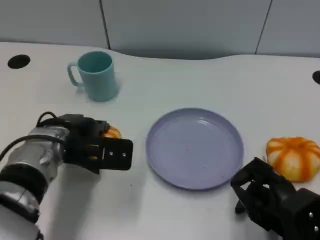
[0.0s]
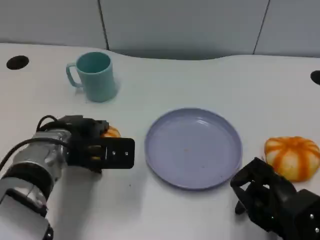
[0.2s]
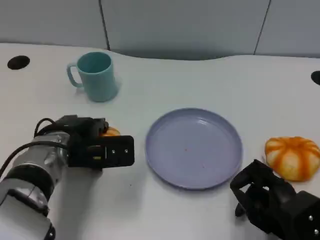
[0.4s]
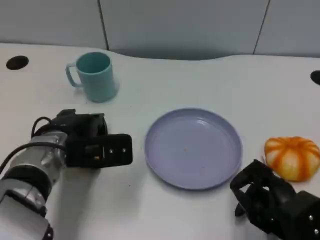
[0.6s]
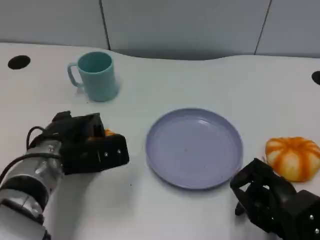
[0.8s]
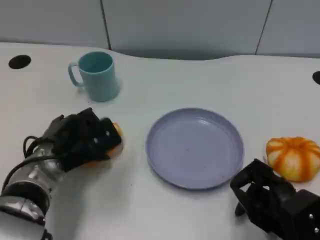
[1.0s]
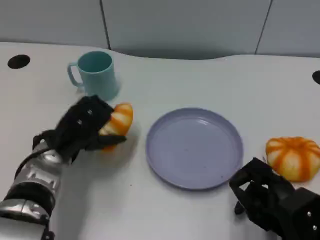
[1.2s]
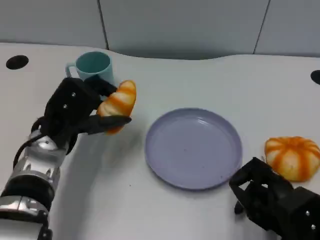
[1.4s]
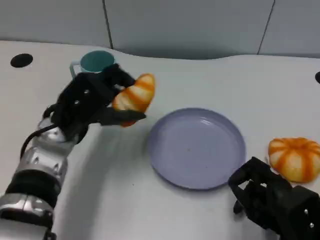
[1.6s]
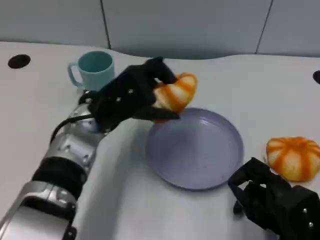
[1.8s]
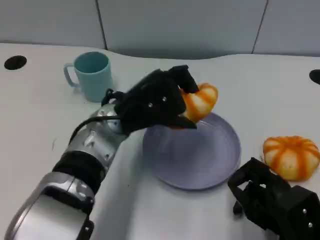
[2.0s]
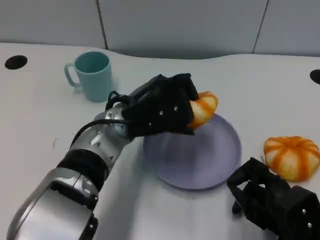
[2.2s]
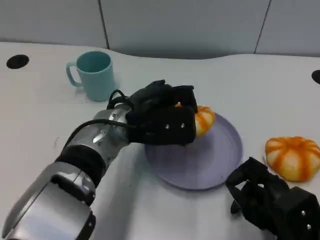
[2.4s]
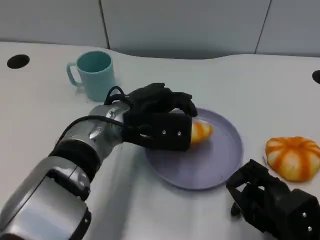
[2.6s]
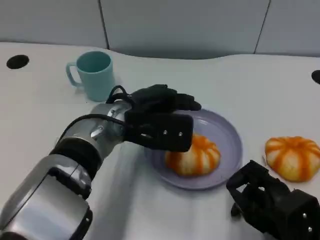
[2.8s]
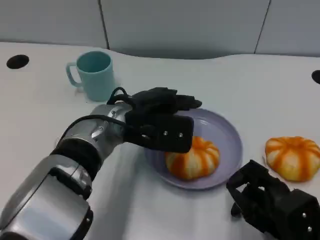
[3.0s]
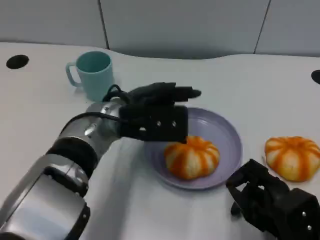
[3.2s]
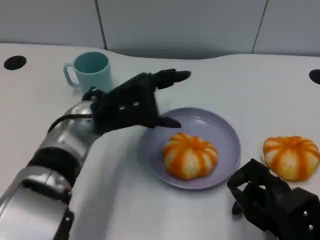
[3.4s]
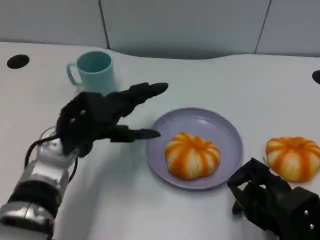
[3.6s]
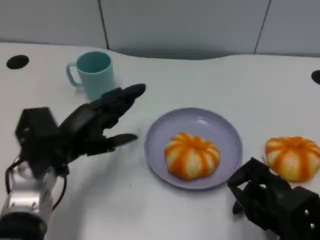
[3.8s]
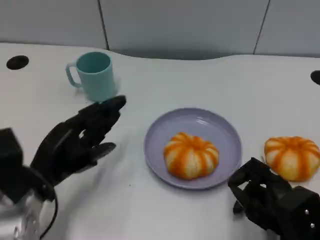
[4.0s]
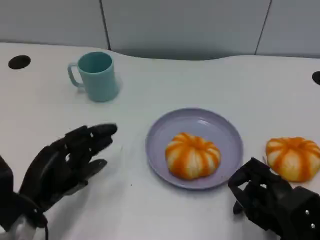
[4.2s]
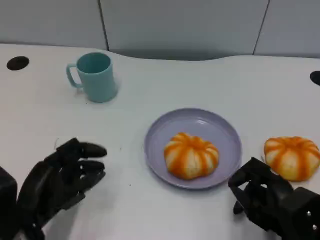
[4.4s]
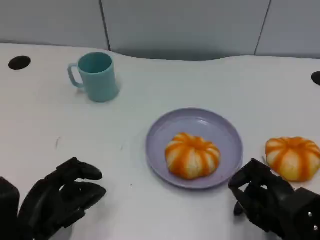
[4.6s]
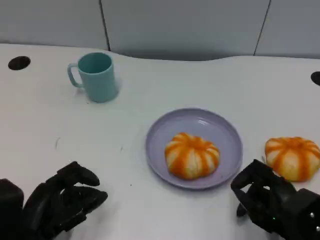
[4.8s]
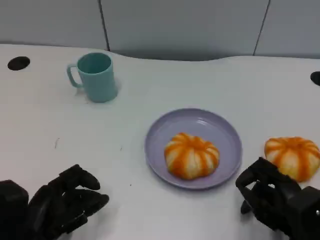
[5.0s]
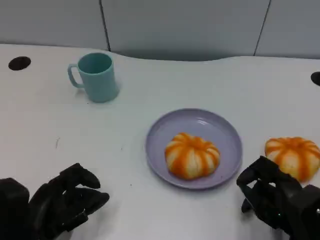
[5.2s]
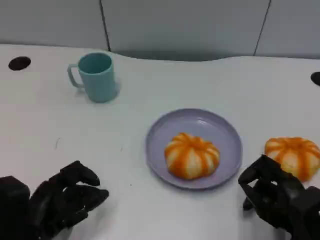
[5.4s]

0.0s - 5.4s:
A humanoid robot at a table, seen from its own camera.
Task of the whole recording: Grasp the bread from the table and place it into the plate.
1.4s - 2.8s: The left hand moves to the right, about 10 cm.
2.8s - 4.0s: The left hand shifts some 20 cm to the left, backward and downward.
4.0s - 5.4s: The left hand heads backward, covering some 5 cm.

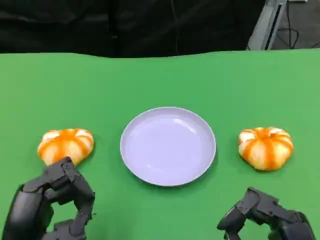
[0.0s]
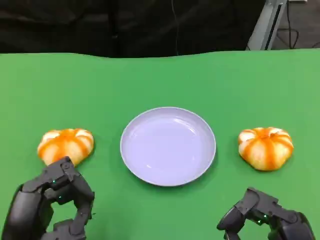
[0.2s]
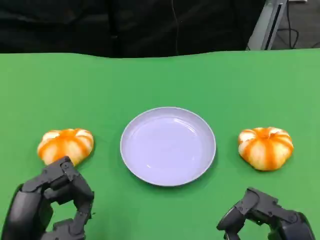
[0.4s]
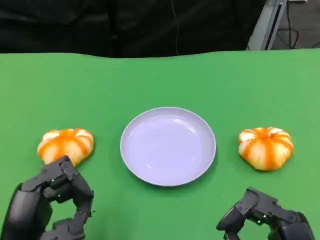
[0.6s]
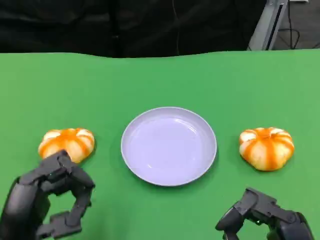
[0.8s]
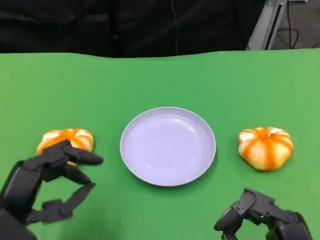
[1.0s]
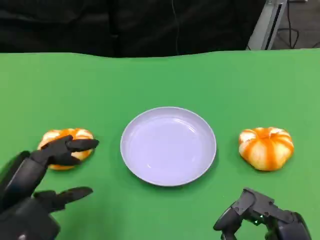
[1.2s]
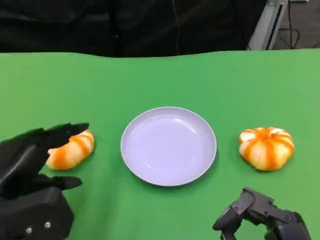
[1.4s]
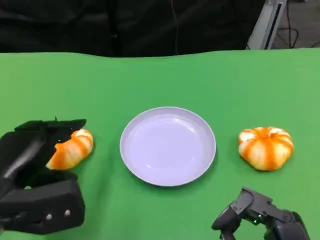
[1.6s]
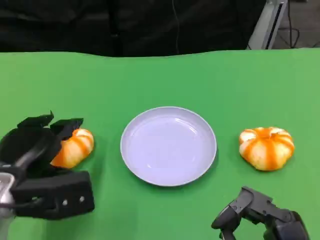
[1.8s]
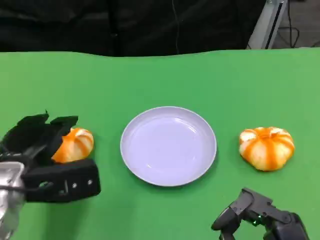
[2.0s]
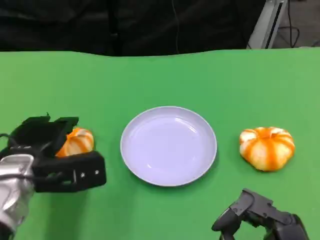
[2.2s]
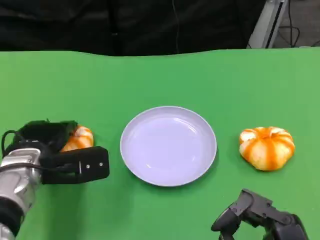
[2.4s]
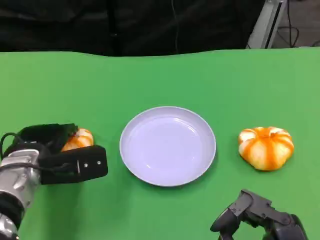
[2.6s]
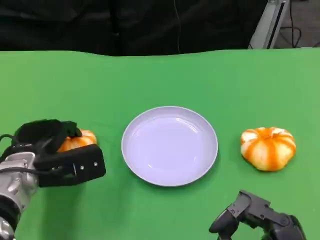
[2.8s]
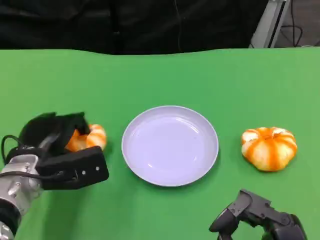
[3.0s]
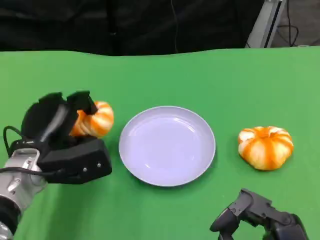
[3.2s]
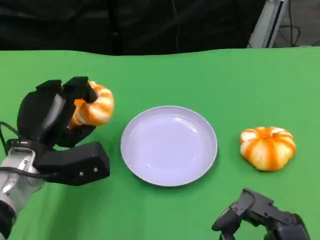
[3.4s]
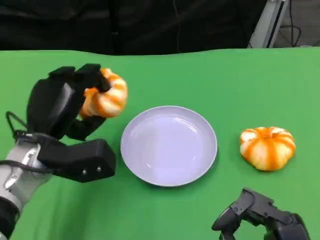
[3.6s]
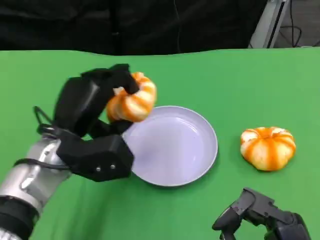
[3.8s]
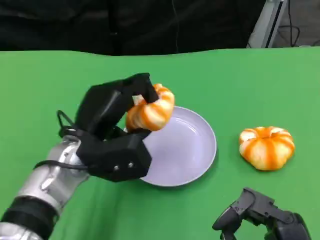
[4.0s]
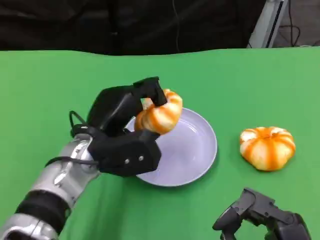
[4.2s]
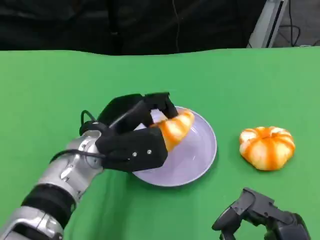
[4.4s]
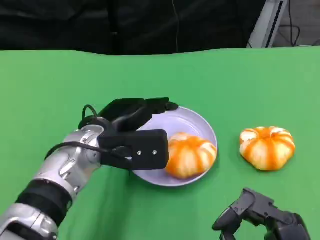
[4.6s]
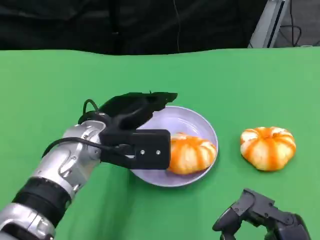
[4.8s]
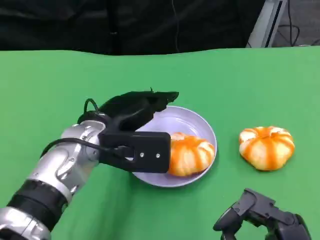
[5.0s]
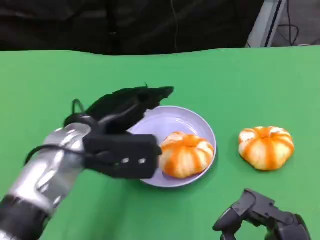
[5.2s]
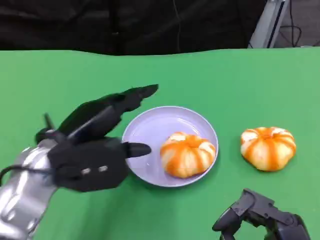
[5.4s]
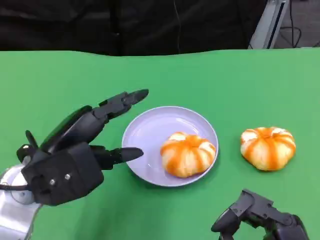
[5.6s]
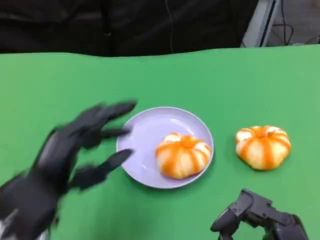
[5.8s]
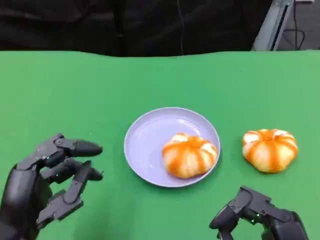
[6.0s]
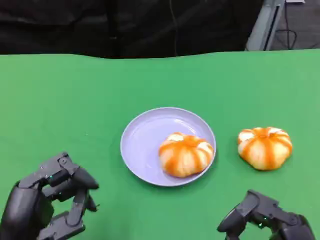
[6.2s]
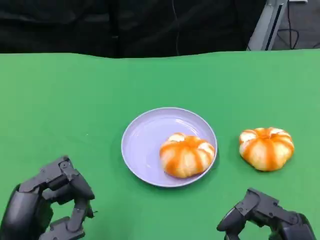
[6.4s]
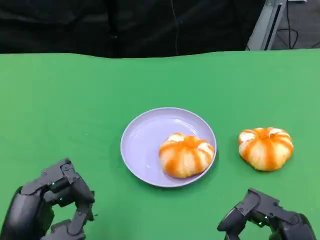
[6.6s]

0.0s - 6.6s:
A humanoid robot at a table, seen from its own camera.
Task of the whole recording: Grasp the bread from the table and place it into the plate.
0.0s - 1.6s: The left hand is displaced forward by approximately 10 cm.
1.6s - 3.2s: The left hand is displaced forward by roughly 10 cm.
3.2s - 5.0s: The left hand shifts approximately 10 cm to the right and upward.
5.0s - 6.6s: The left hand goes approximately 20 cm backward and to the left.

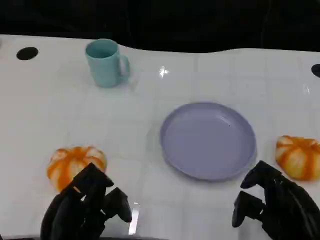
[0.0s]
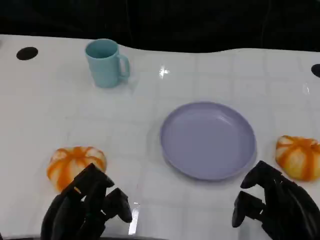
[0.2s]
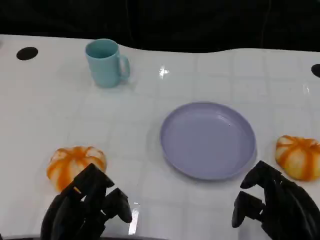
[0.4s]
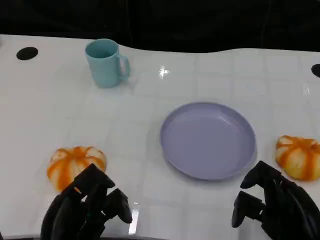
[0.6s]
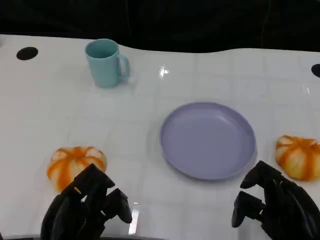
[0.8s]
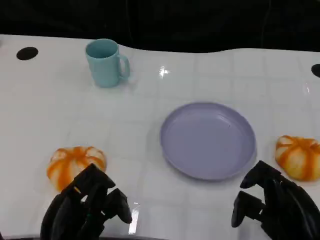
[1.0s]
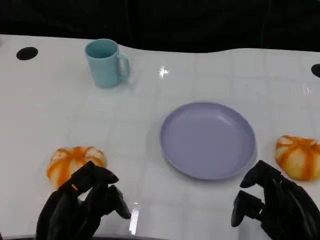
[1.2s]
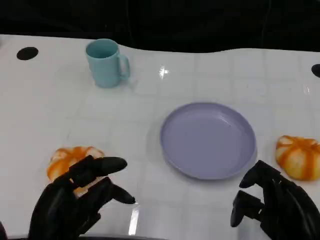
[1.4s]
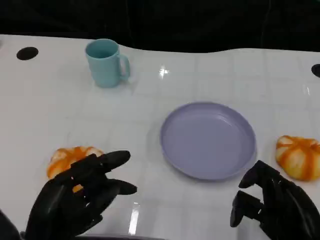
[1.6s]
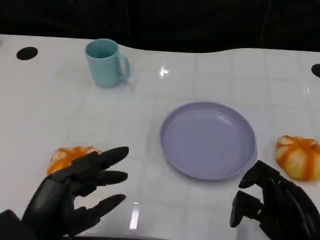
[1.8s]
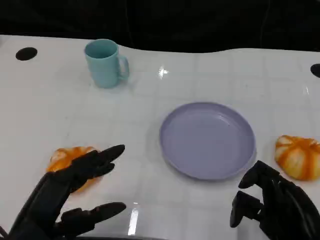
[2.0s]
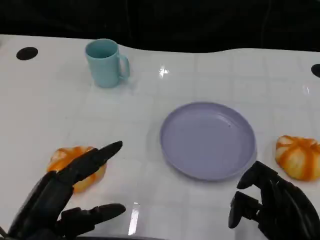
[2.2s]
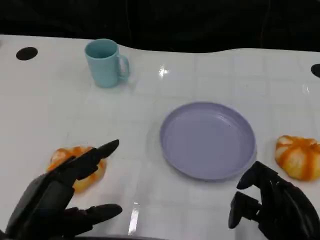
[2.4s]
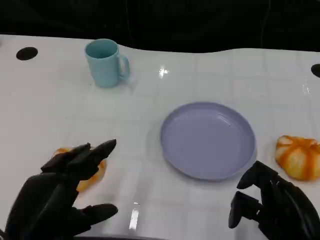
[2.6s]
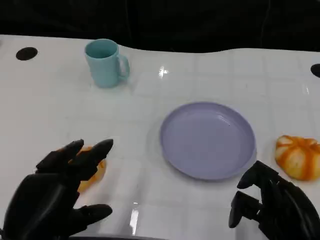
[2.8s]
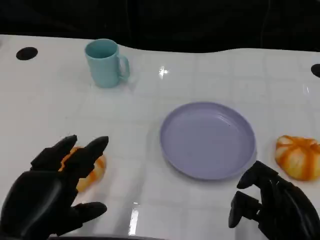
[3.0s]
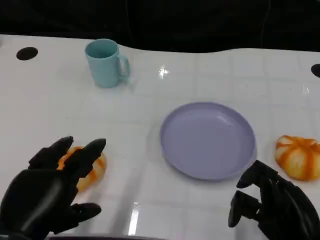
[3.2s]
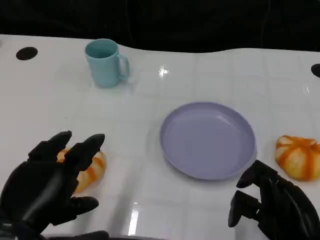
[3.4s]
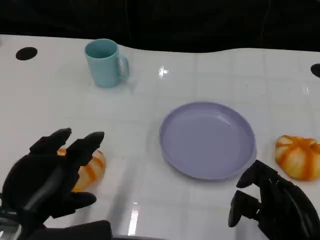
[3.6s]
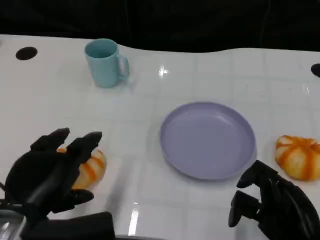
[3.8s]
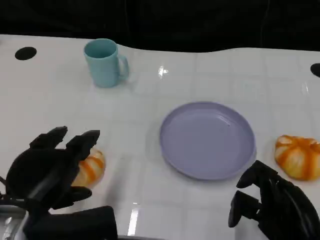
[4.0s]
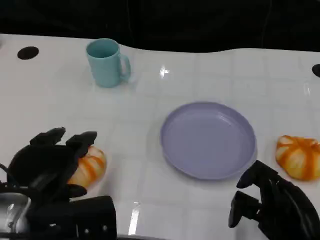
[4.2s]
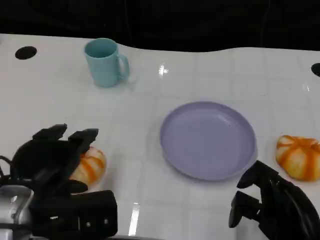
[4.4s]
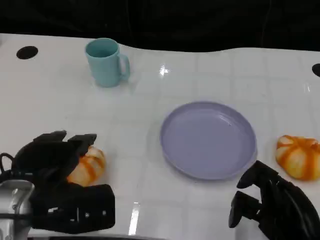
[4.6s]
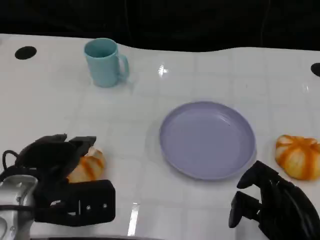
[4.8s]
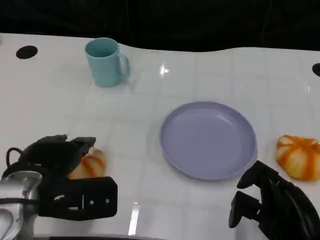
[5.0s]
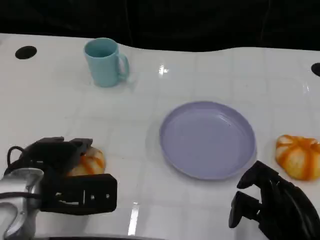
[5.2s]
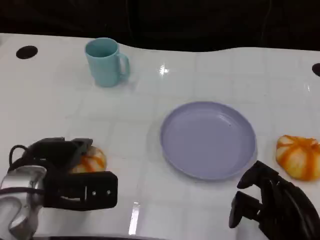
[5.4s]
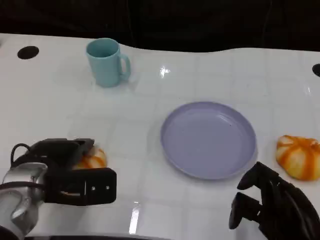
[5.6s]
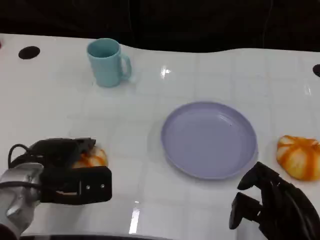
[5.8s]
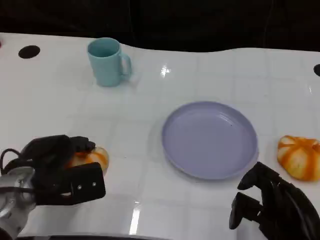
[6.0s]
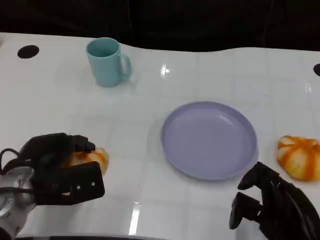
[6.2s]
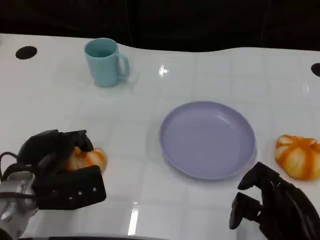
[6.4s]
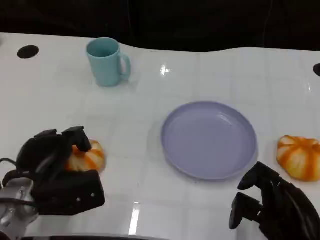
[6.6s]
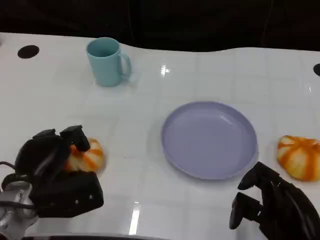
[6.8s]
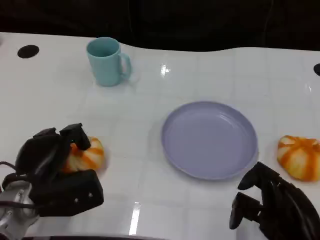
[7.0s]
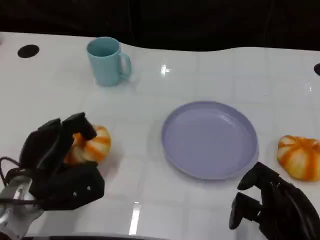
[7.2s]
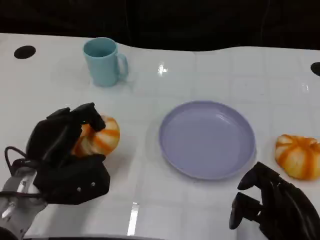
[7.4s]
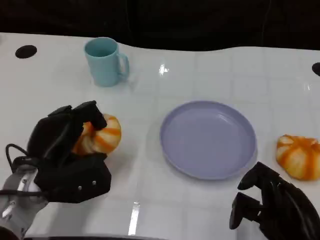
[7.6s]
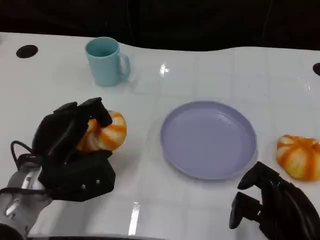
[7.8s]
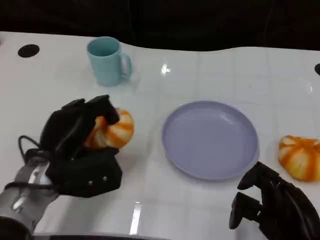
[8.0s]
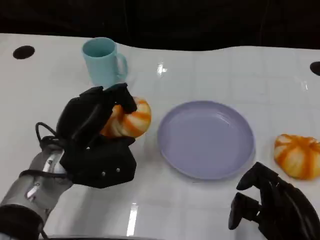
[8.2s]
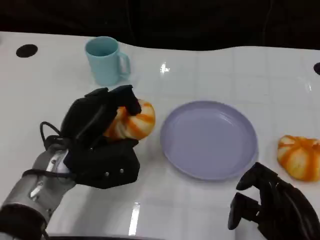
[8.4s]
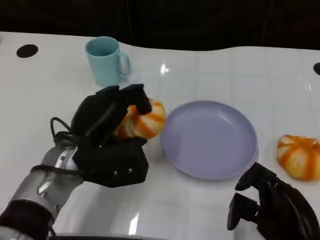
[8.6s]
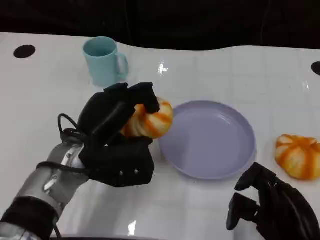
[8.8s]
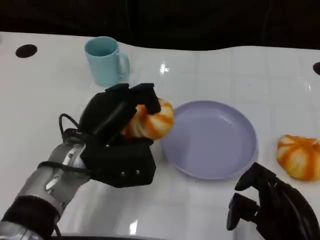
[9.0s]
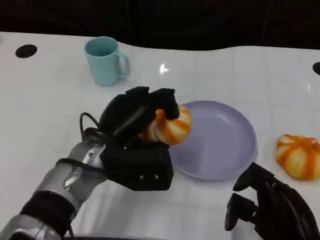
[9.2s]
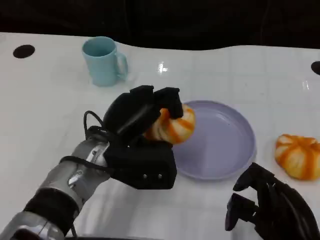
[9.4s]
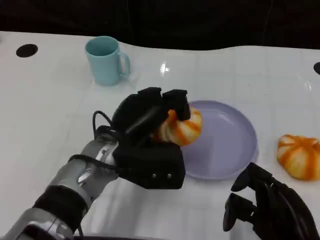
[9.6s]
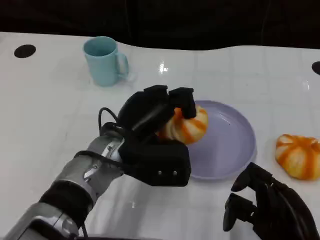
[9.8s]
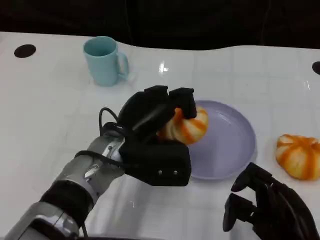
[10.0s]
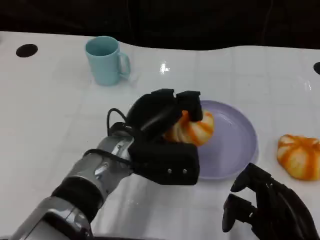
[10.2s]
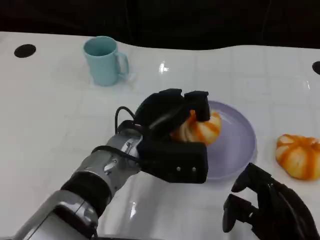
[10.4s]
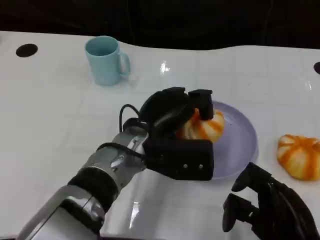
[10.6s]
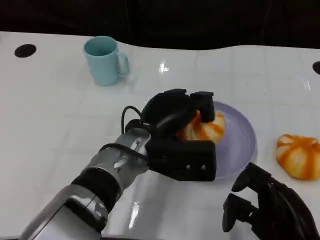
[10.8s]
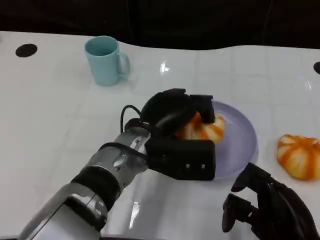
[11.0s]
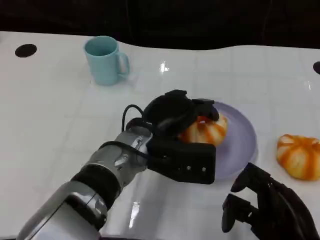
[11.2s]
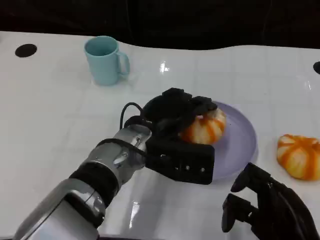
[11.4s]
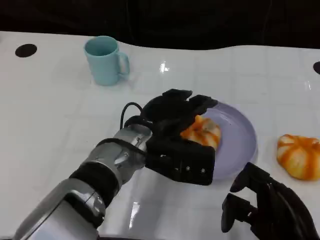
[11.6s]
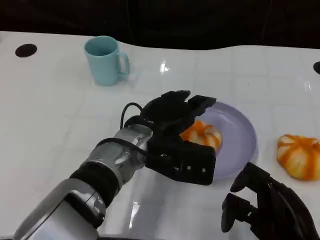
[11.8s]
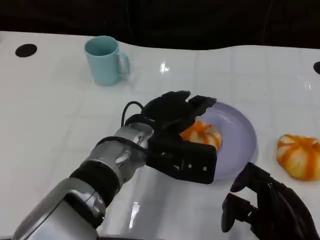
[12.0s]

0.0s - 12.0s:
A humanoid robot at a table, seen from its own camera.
Task of the whole recording: Grasp the bread from the table and place it into the plate.
3.0s - 4.4s: The left hand shifts some 5 cm forward.
4.4s - 6.0s: The left hand travels forward and downward by some 10 cm.
7.6s - 9.0s: The left hand shifts roughly 5 cm to the right.
9.0s - 10.4s: The left hand shifts roughly 5 cm to the right.
10.4s - 12.0s: There are only small adjustments of the hands.
